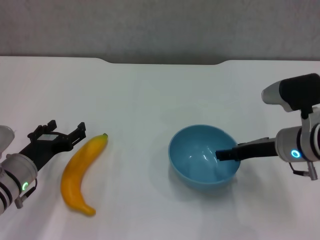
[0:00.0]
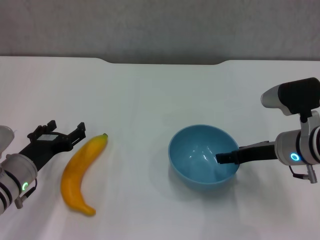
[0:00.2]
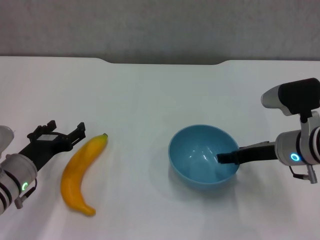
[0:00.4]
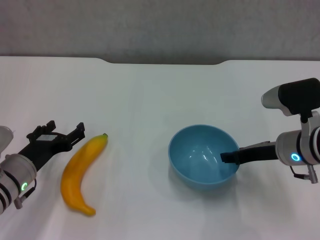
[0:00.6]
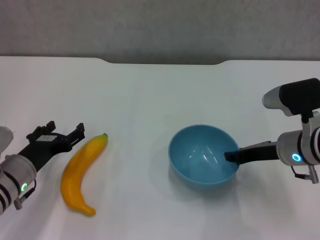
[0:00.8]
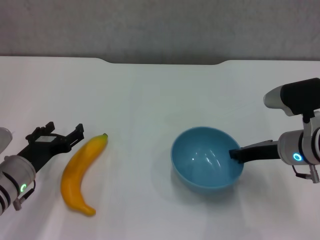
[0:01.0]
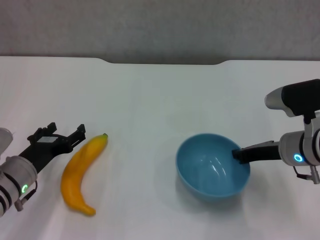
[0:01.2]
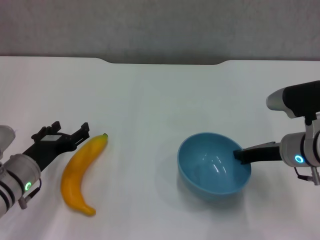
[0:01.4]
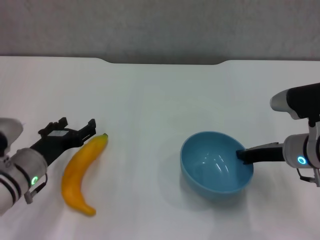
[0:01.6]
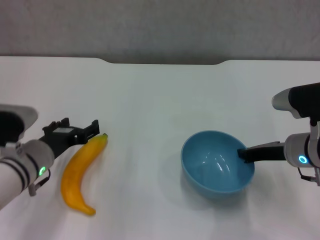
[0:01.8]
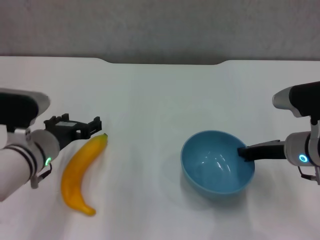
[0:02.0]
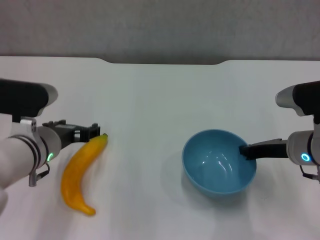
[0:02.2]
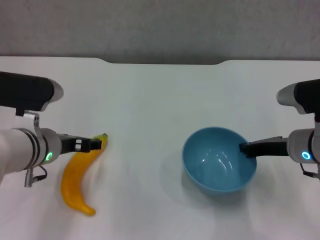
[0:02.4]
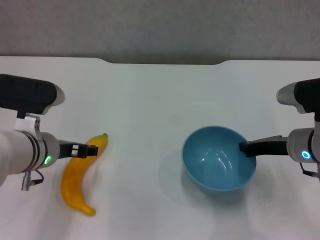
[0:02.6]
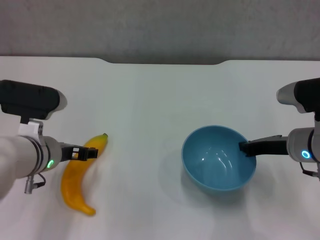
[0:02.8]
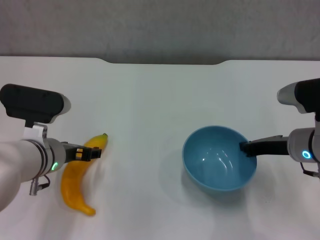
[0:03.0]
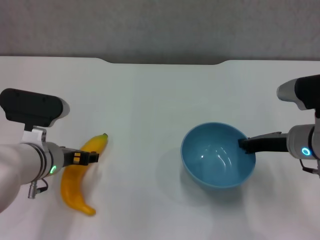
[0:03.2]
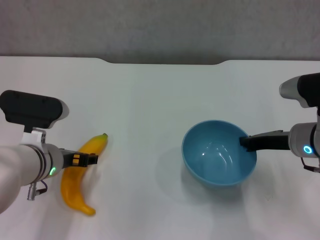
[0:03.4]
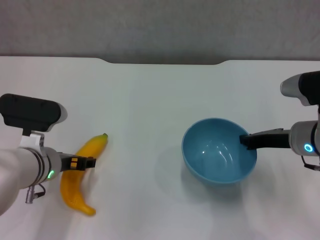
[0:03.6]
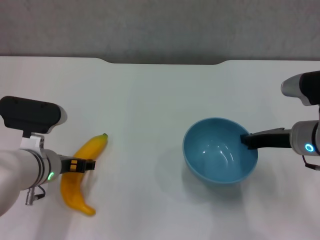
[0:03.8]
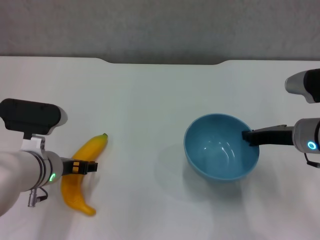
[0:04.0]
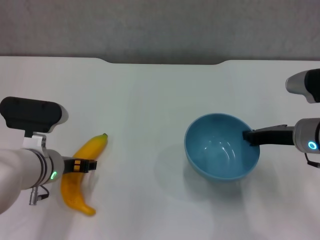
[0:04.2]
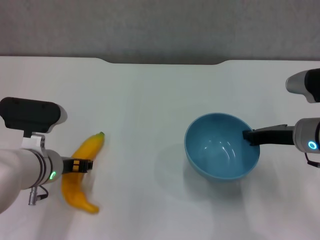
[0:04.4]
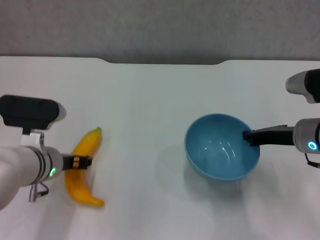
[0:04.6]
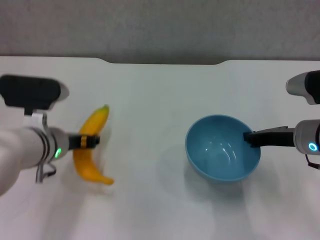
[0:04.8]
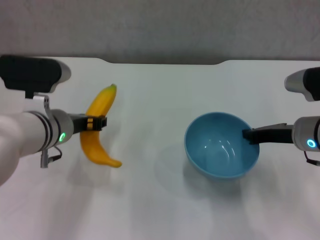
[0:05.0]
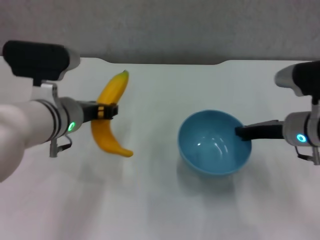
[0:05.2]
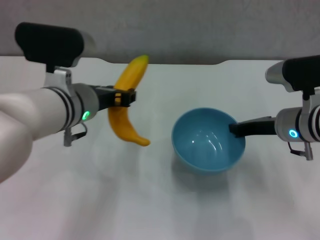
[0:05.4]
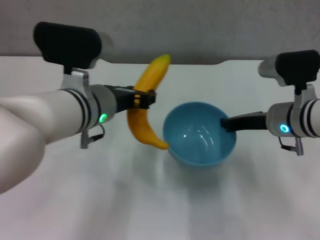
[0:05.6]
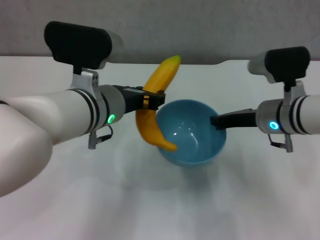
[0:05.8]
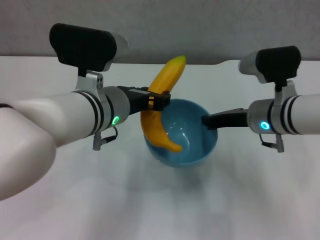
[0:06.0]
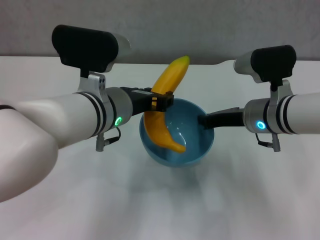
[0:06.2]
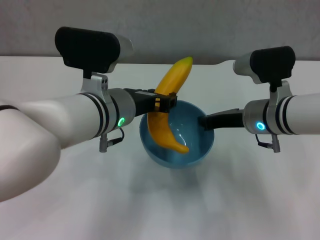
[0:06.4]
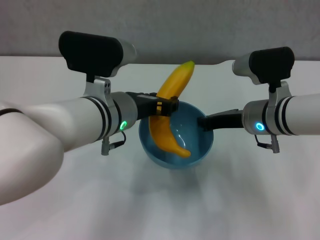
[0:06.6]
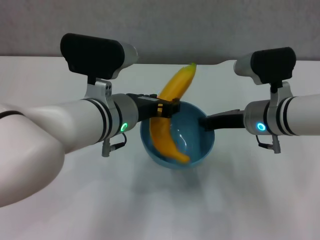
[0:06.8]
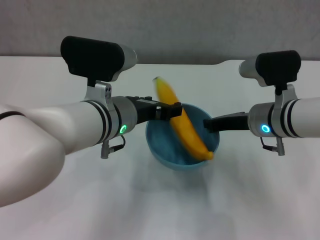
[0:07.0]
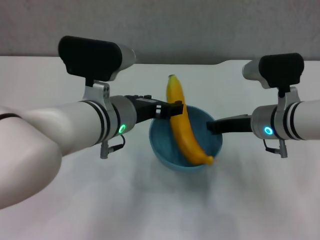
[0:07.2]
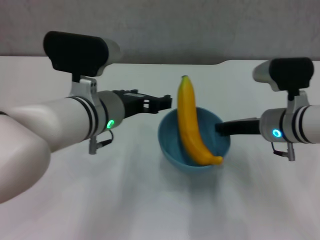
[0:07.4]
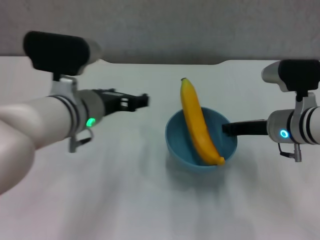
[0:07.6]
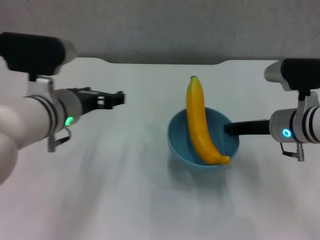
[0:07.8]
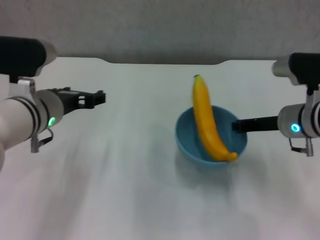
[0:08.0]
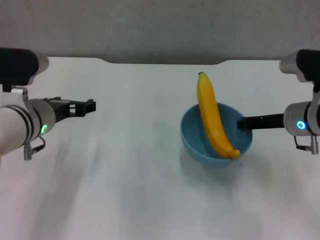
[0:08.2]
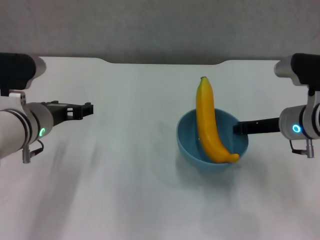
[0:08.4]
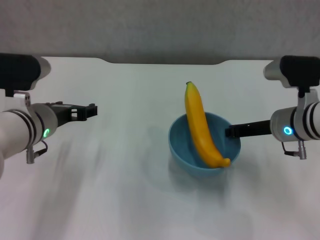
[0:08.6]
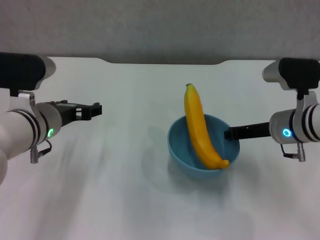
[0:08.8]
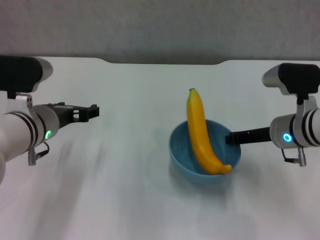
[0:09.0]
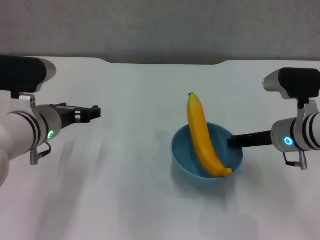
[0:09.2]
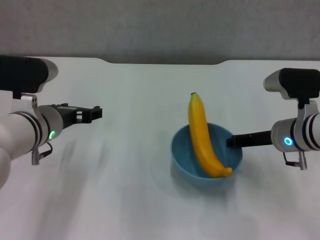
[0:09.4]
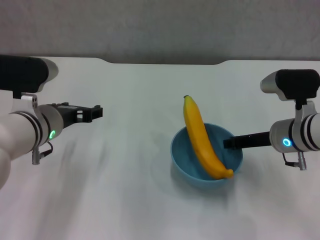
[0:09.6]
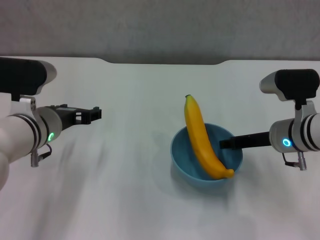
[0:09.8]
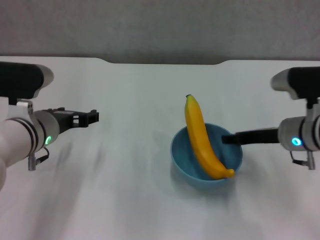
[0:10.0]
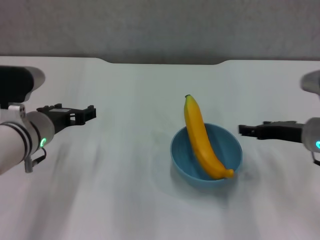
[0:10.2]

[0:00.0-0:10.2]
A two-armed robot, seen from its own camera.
Step, 0:01.4 to 0:04.2: Lift the blue bowl with right gripper.
Step, 0:04.6 to 0:07.0: Place the banana in the blue bowl with left gripper.
Step, 0:07.2 to 0:09.8: Place the bowl on the table with right gripper.
0:00.0 to 0:01.4: The right gripper closes its fingers.
0:01.4 to 0:03.0: The left gripper travels upward and to the right by roughly 10 cm.
0:03.0 to 0:04.4: The grippers make only small movements.
0:04.4 to 0:05.8: The right gripper goes approximately 5 cm to the left. The left gripper is displaced upward and to the right by approximately 15 cm, and closes.
0:05.8 to 0:07.2: The left gripper opens its fingers.
0:07.2 to 0:08.8: The left gripper heads to the left, covering about 10 cm.
0:08.8 to 0:10.2: The right gripper moves about 5 cm, and opens up.

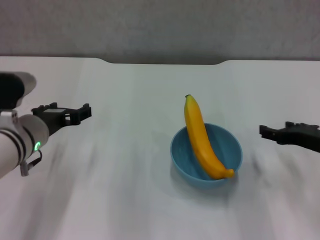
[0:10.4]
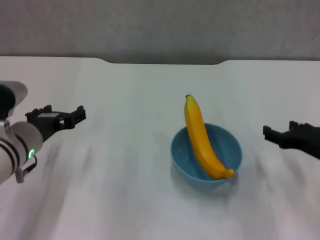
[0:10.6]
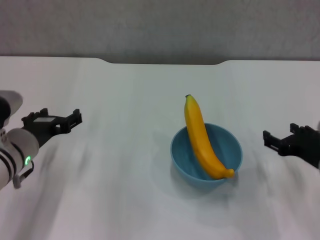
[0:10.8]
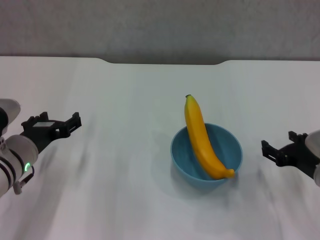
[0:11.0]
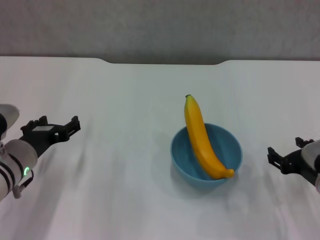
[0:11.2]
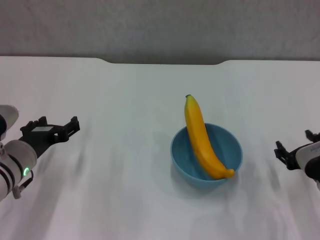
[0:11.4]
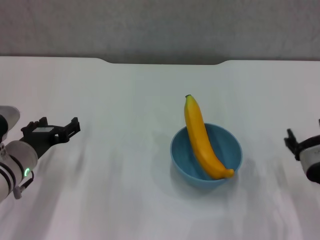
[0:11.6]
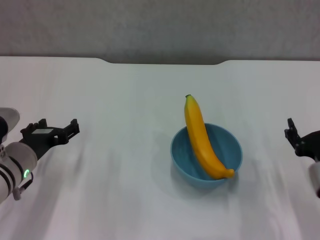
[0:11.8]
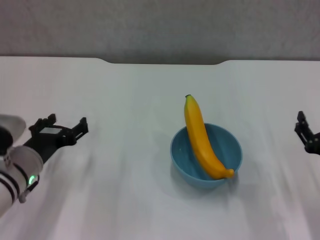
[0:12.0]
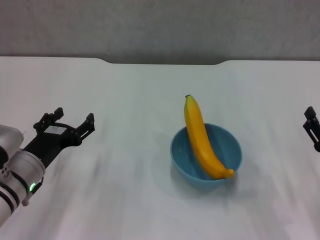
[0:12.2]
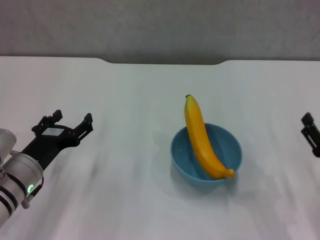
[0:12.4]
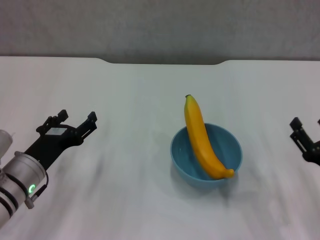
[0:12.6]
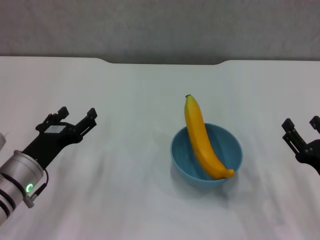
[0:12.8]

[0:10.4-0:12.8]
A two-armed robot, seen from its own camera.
0:10.4 to 0:11.6: The left gripper shifts by some 5 cm; the right gripper is displaced backward by roughly 5 cm.
0:11.6 to 0:12.8: The right gripper shifts by some 5 cm.

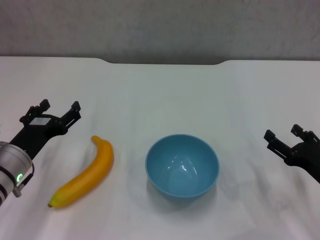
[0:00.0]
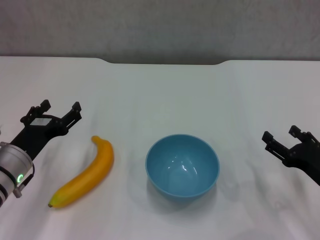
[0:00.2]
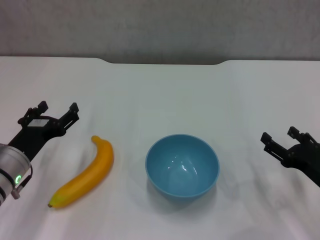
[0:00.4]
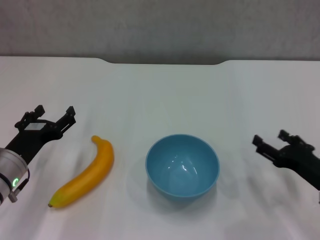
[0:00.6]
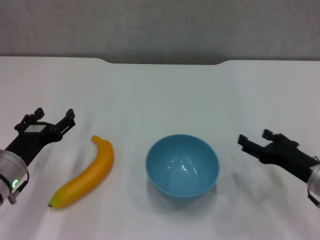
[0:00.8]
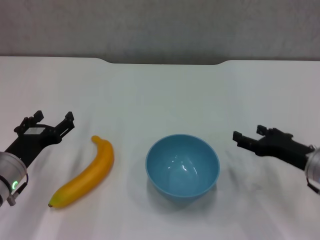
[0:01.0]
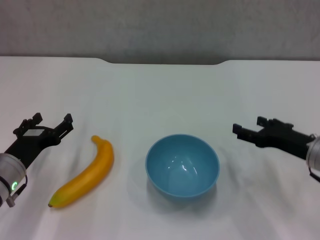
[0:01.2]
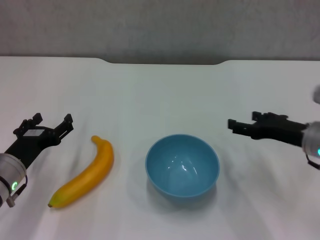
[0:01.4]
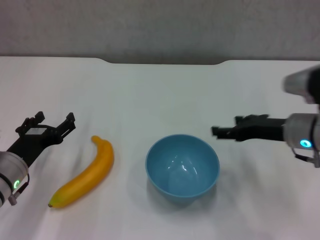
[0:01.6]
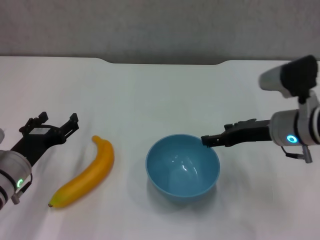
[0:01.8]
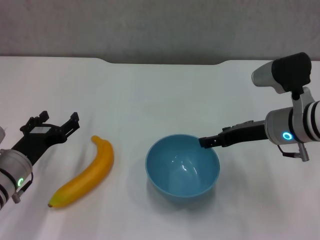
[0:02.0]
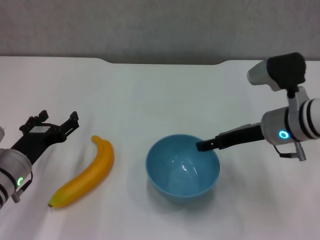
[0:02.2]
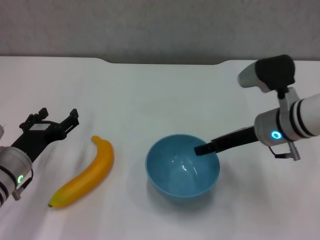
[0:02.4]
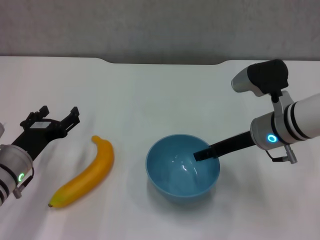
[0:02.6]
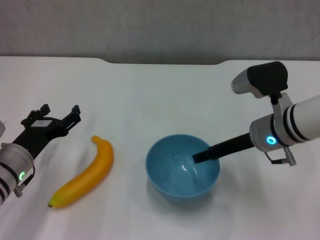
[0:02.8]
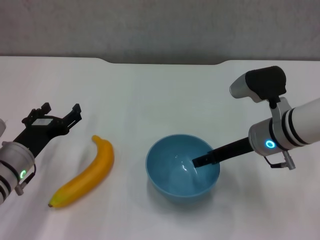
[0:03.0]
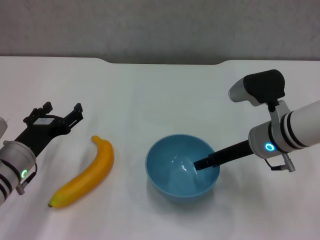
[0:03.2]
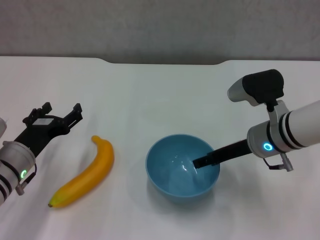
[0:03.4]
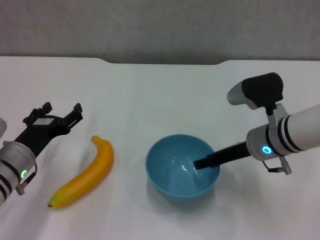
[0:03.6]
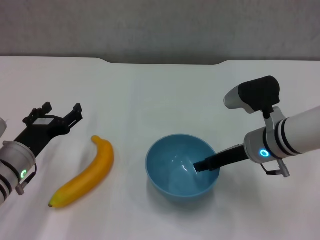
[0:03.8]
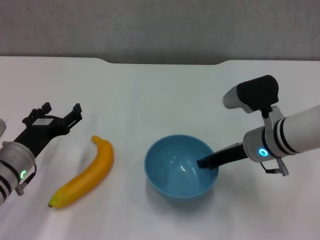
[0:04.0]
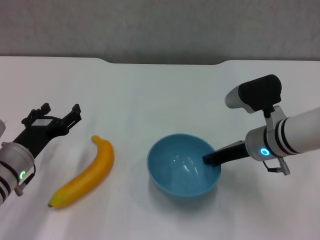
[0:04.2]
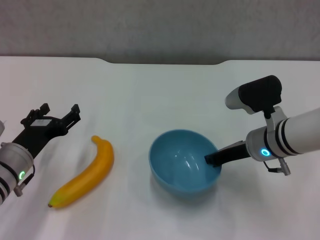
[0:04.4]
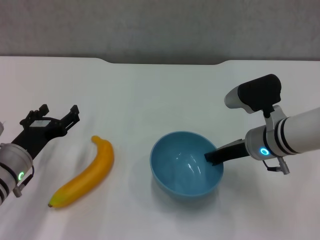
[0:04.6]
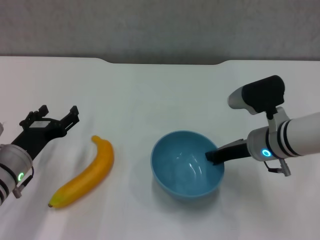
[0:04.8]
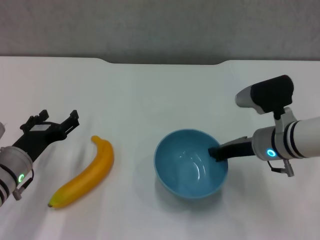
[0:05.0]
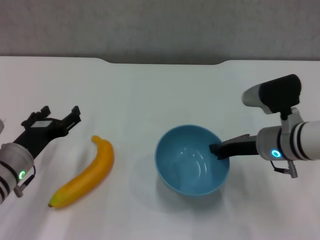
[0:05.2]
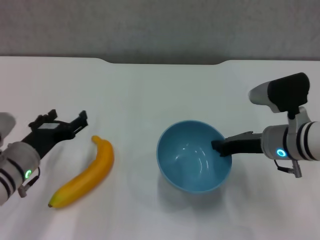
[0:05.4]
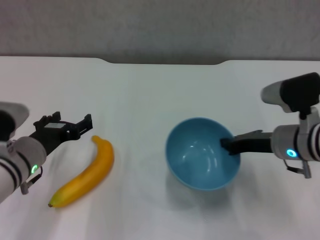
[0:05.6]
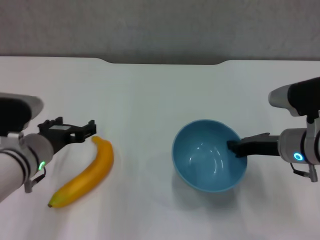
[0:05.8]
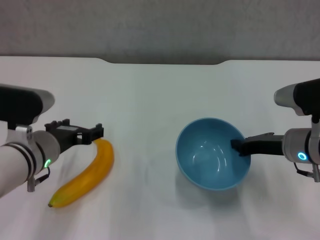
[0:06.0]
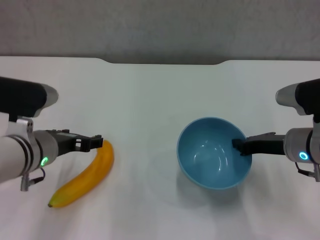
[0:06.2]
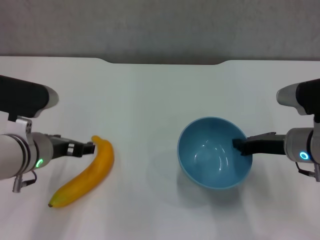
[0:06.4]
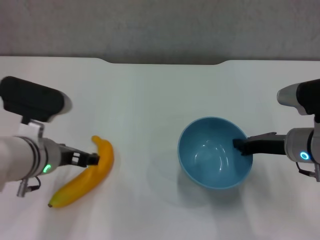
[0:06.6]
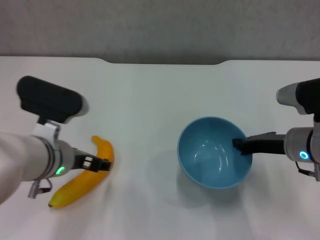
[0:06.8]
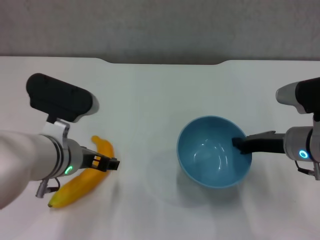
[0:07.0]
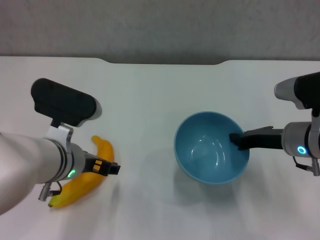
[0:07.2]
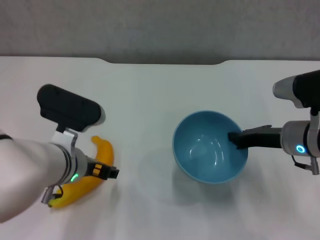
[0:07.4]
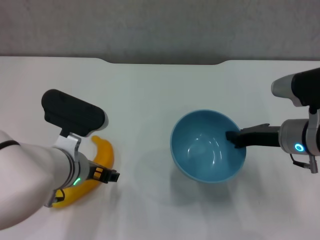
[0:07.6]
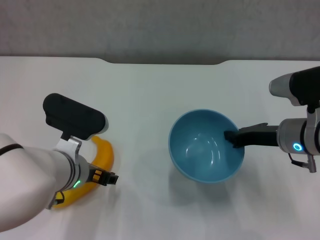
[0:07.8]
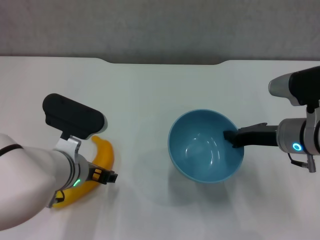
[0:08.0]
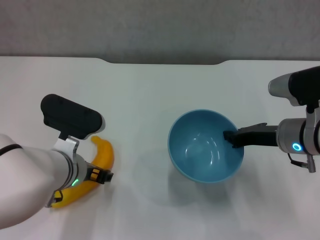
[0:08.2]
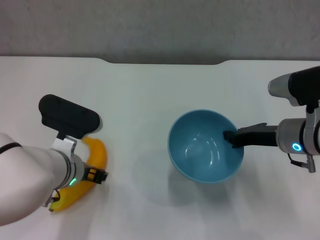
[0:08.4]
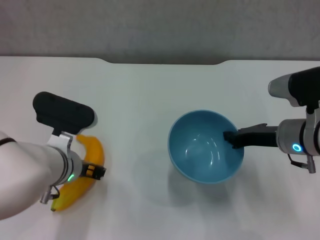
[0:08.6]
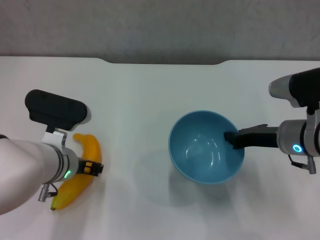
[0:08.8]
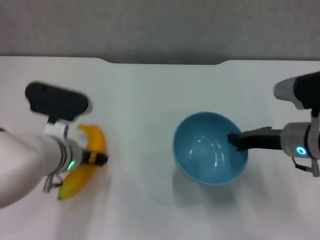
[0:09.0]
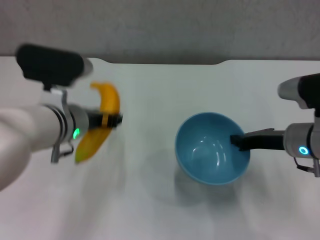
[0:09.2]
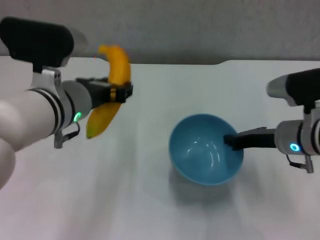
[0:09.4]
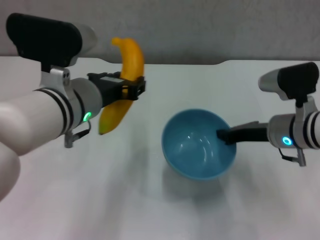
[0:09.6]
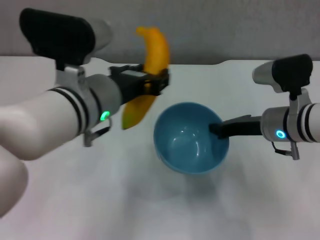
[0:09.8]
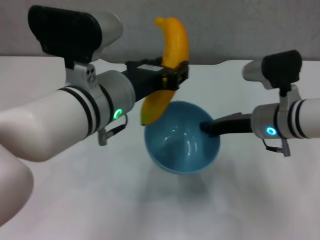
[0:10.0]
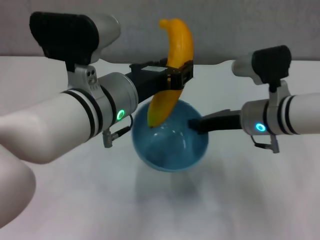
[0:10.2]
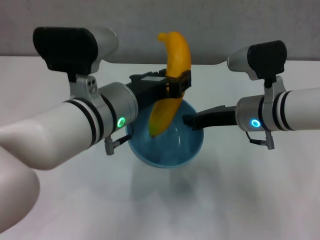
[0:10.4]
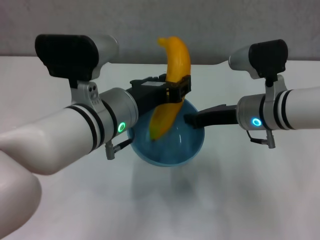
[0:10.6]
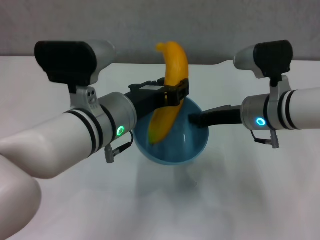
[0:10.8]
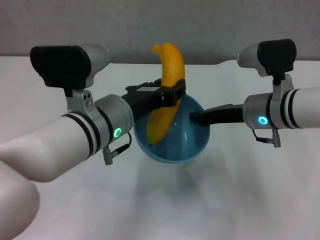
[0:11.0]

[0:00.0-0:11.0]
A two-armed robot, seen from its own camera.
Step, 0:00.0 to 0:04.4: Grasp the blue bowl with right gripper.
Step, 0:04.6 to 0:06.2: Lift the blue bowl with right gripper.
Step, 0:06.4 to 0:08.4: Grasp the banana with left gripper.
0:00.0 to 0:01.6: The right gripper heads forward, upward and to the left, covering roughly 15 cm.
0:01.6 to 0:03.2: The right gripper travels to the left by some 5 cm.
0:03.2 to 0:04.8: The right gripper closes.
0:04.8 to 0:06.2: The left gripper shifts some 10 cm upward and to the right, while the right gripper goes some 5 cm to the right.
0:06.2 to 0:07.8: The left gripper changes place by roughly 5 cm.
0:07.8 to 0:09.4: The left gripper shifts roughly 10 cm upward, and closes up.
0:09.4 to 0:11.0: The left gripper shifts by some 5 cm. Meanwhile the right gripper moves to the left, roughly 5 cm.
